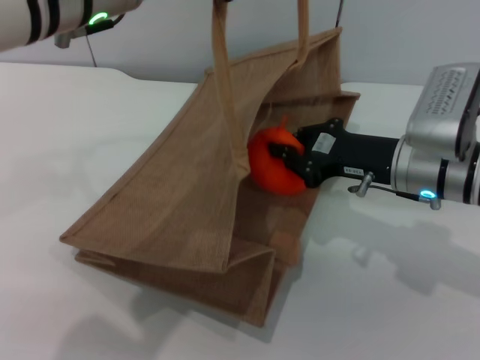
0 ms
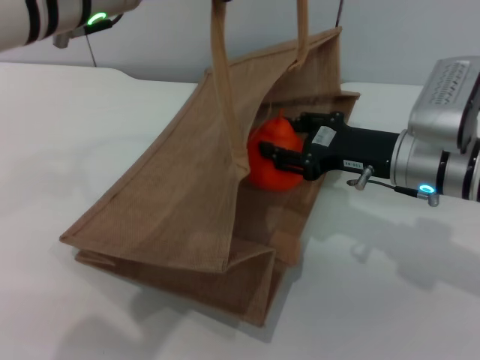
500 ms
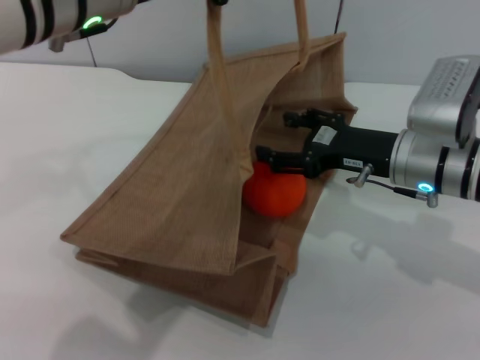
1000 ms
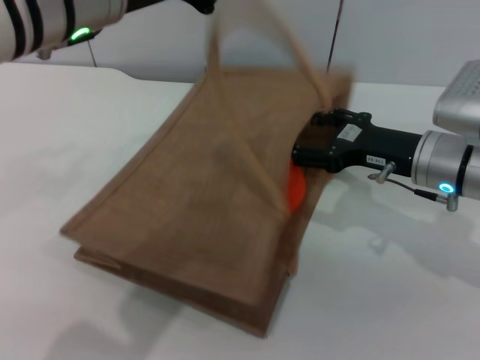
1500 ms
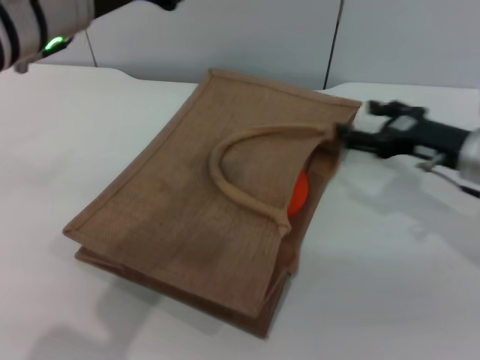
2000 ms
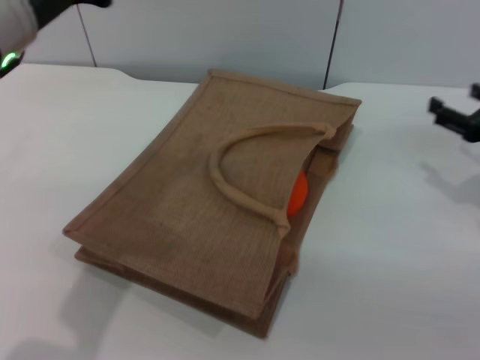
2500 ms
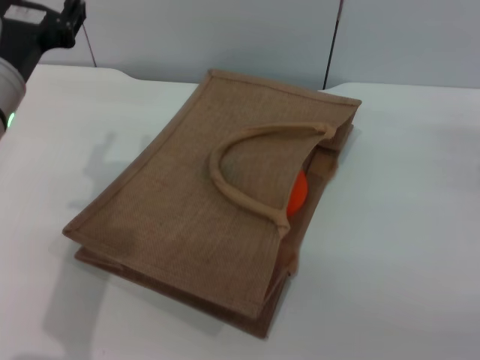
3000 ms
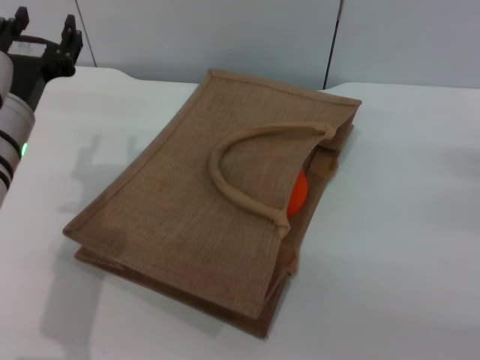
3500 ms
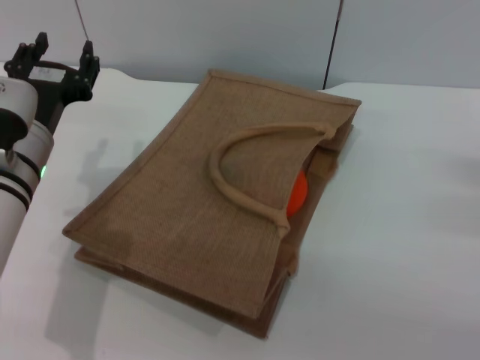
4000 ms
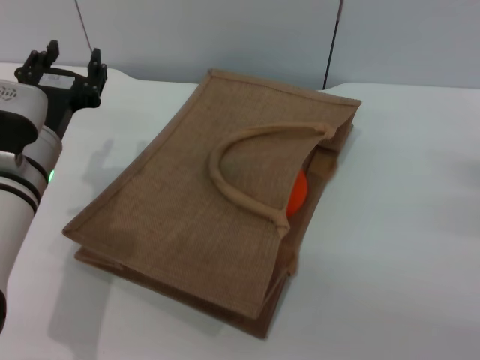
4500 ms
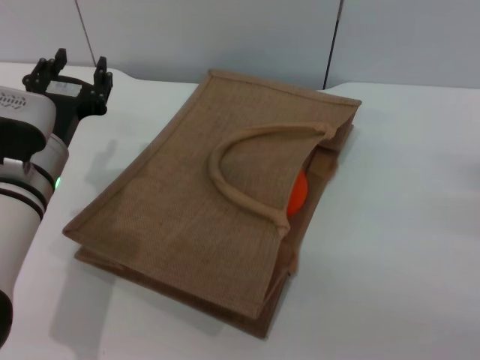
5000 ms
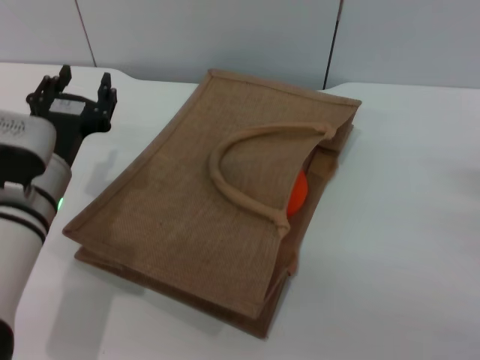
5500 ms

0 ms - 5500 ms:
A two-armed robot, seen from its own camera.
Task of the whole recording: pick up the orange from the table and place it in the brown handbag.
Step, 1000 ms - 2000 ms: Lower the woven bag with the left gripper to close it.
0 ms - 2000 ms: The left gripper opens. Meanwhile the right gripper is displaced to the right by some 5 cm, and opens up.
2000 ms - 3500 ms: The left gripper moves downward and to the left, approximately 15 cm; the right gripper shifts some 15 cm to the right and backward.
3500 ms - 5500 ms: The left gripper shifts roughly 5 cm downward.
